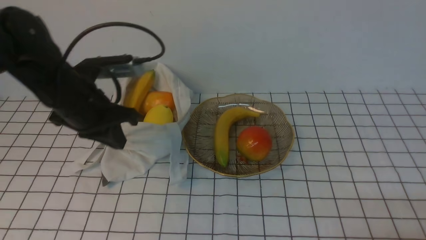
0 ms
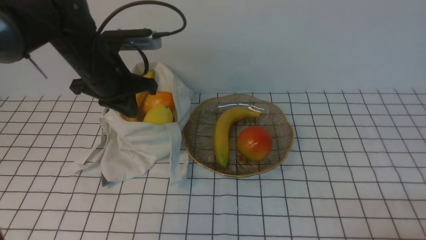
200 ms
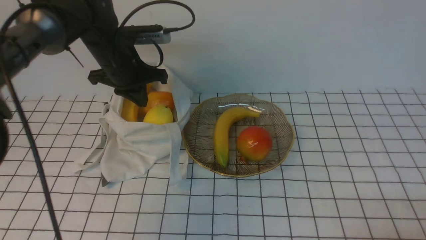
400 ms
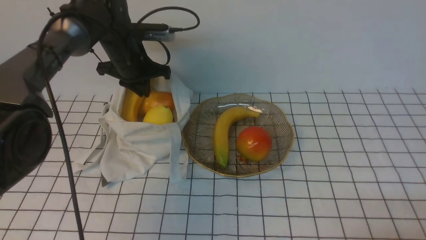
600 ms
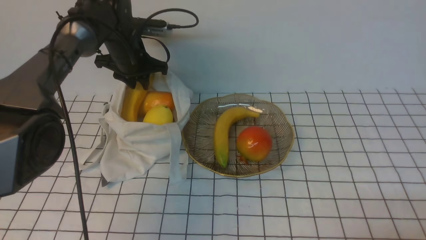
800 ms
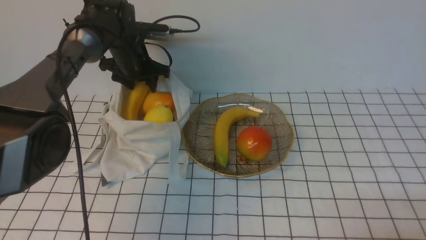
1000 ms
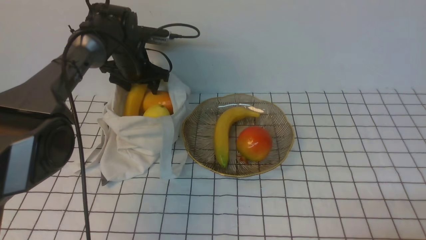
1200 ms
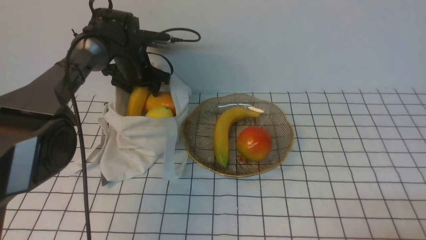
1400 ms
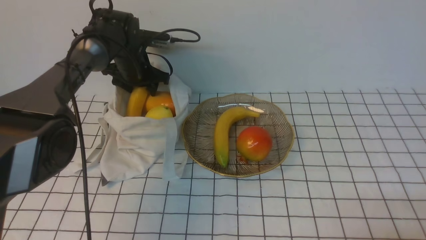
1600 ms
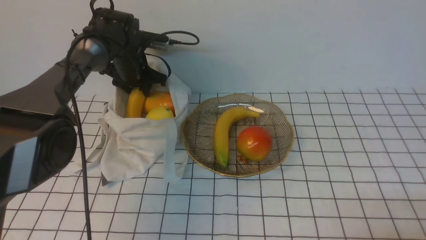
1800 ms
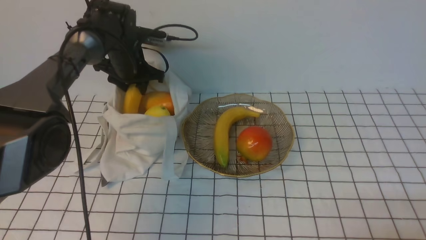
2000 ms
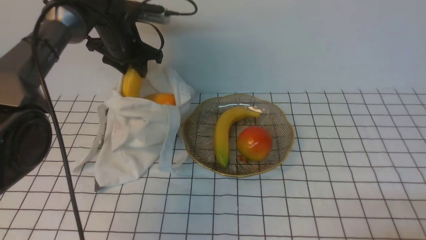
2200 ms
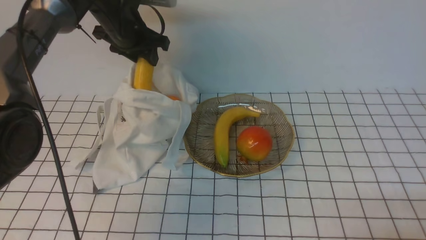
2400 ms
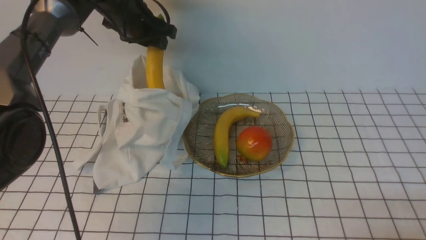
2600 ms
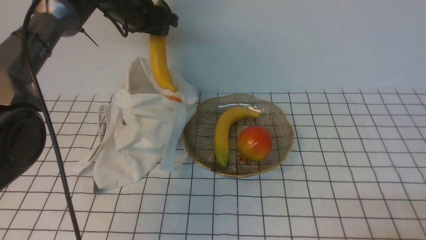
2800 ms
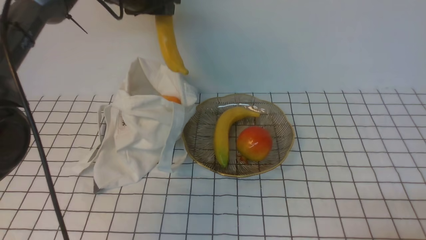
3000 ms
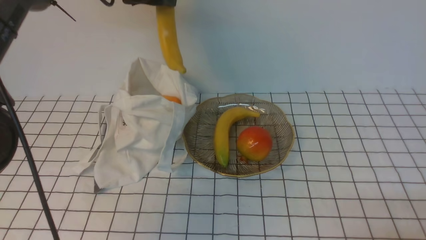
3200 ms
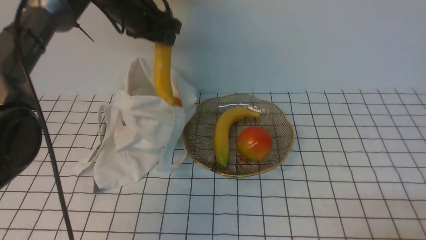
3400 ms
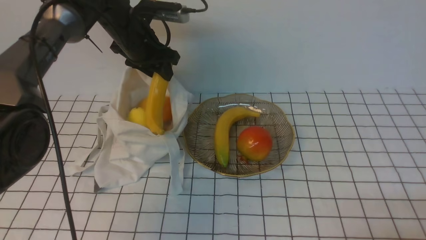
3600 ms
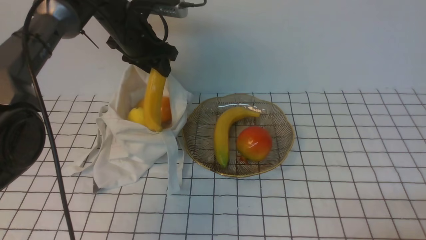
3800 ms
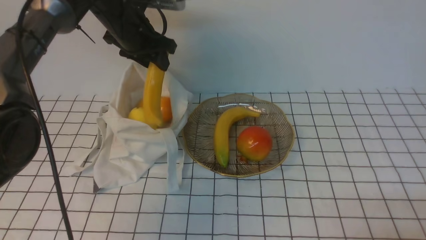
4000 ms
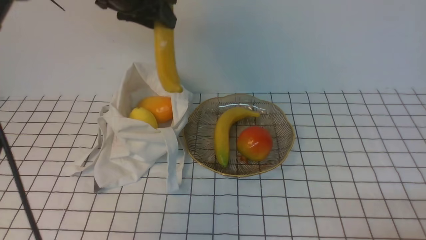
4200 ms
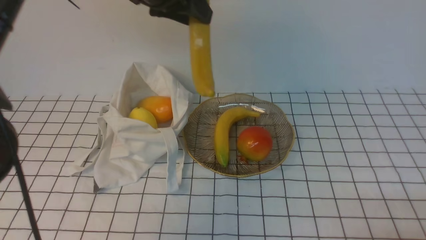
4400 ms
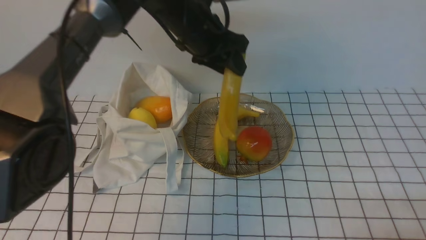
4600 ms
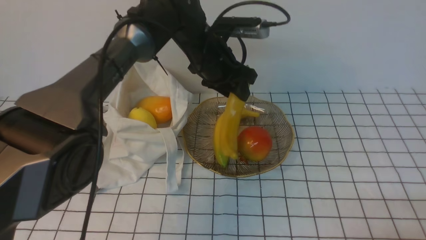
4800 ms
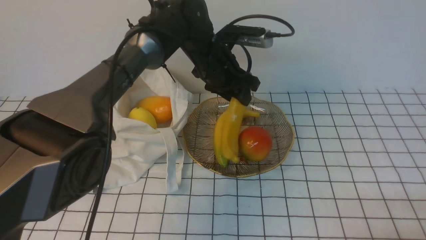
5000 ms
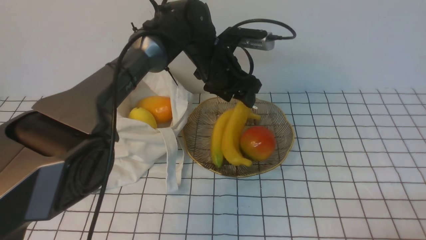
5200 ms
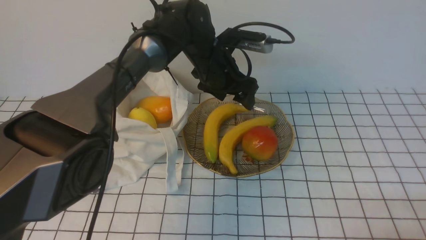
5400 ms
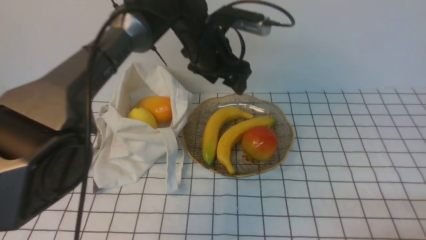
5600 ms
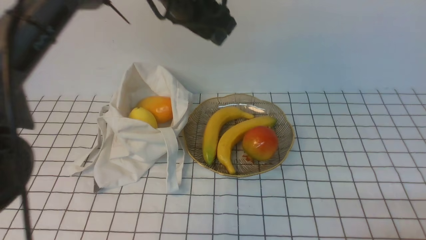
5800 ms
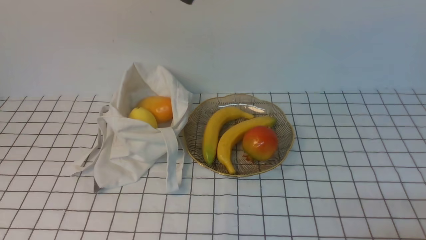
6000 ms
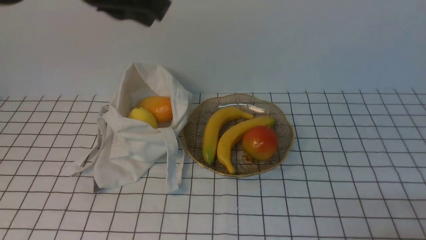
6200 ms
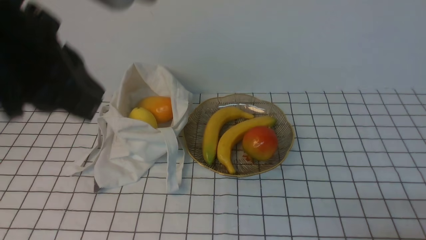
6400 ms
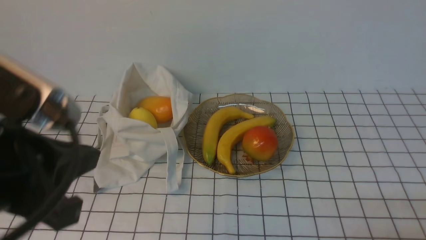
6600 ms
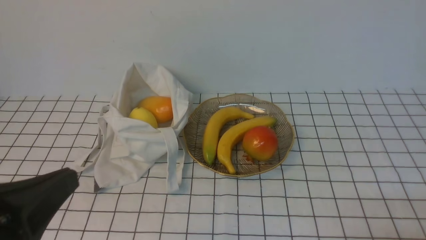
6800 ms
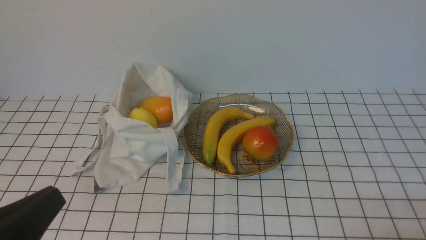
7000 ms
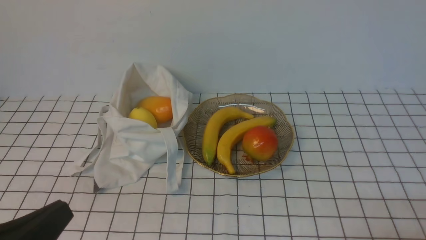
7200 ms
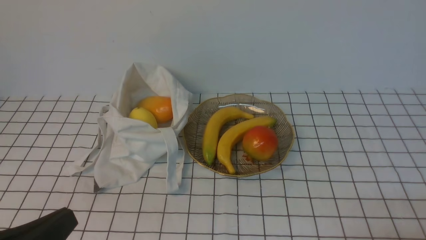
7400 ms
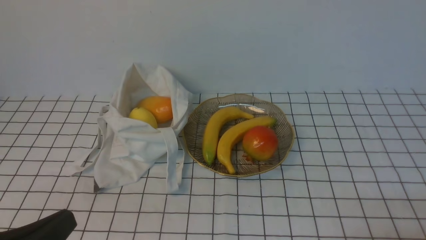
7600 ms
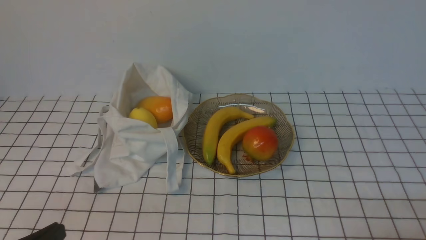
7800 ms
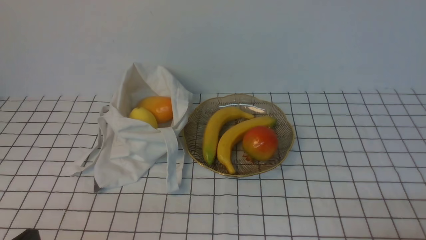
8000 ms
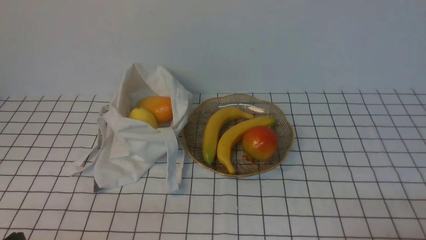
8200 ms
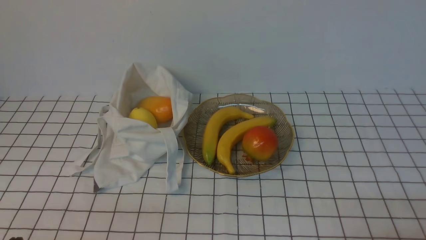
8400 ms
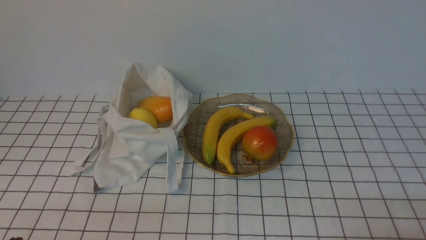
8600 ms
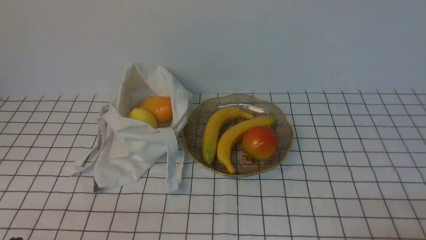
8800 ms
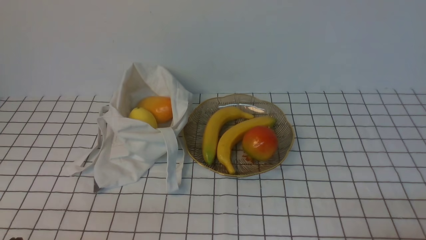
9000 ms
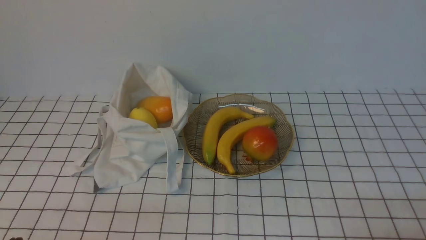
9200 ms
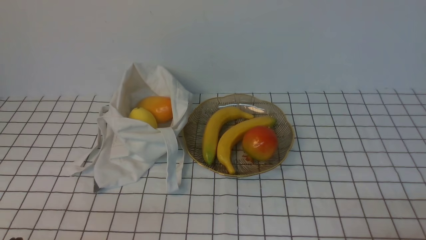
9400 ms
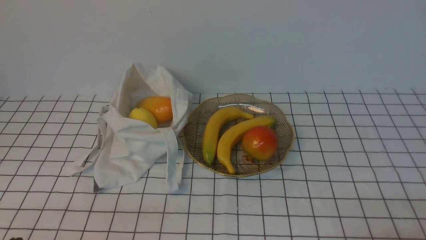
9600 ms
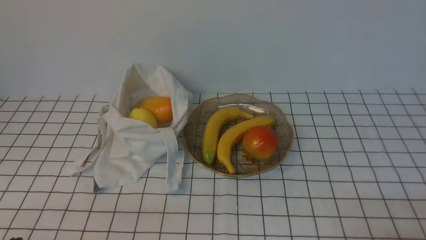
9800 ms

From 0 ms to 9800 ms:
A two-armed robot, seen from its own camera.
Step, from 2000 ms to 5400 ms: use the left arm to put the banana into the empty plate on the right.
From 0 ms to 1400 ms: The left gripper travels forward and downward by some 20 cm, and opens its fingers.
From 1400 ms to 2800 ms: The left gripper is displaced upward by approximately 15 cm.
From 2800 ms to 4200 ms: The left gripper moves backward, about 5 cm.
From 4200 ms to 5600 ms: The left gripper goes some 10 cm to the right, and opens.
From 5600 ms to 7000 ms: The left gripper shifts about 40 cm backward and to the left, and closes its fingers.
From 7000 ms to 8400 ms: The left gripper travels downward by roughly 10 cm.
From 8400 ms to 9800 ms: Both grippers stay about where they are.
